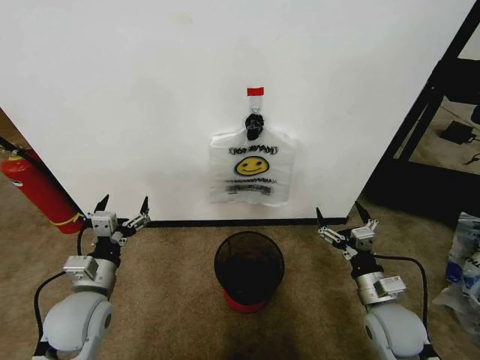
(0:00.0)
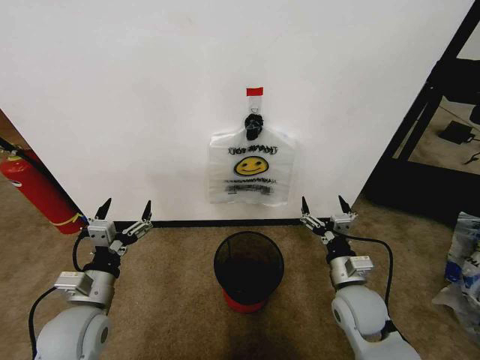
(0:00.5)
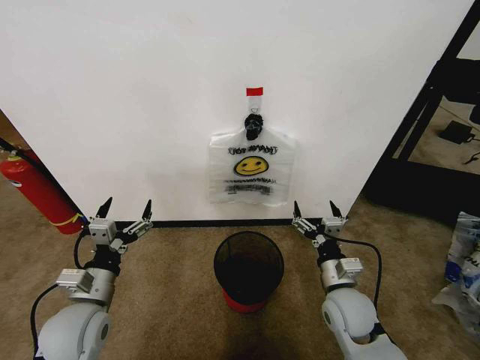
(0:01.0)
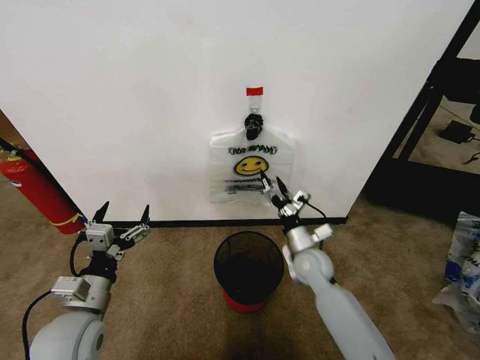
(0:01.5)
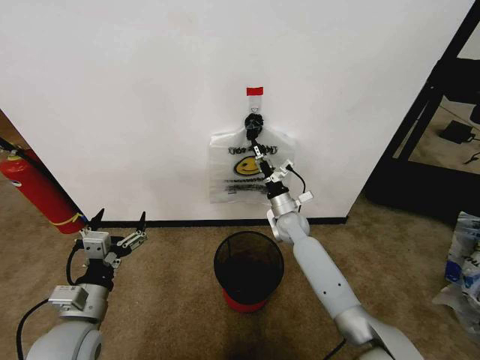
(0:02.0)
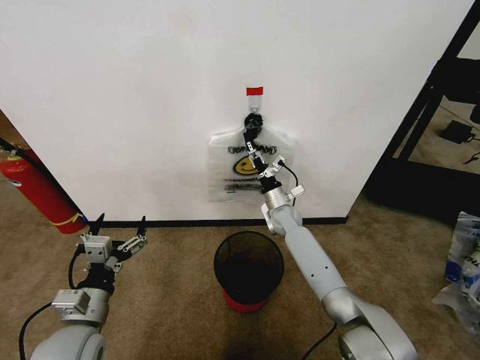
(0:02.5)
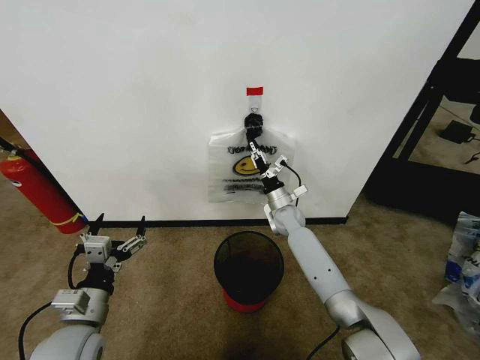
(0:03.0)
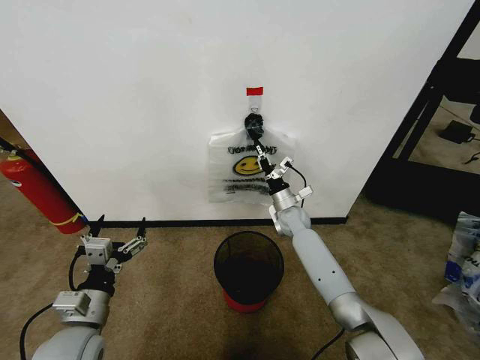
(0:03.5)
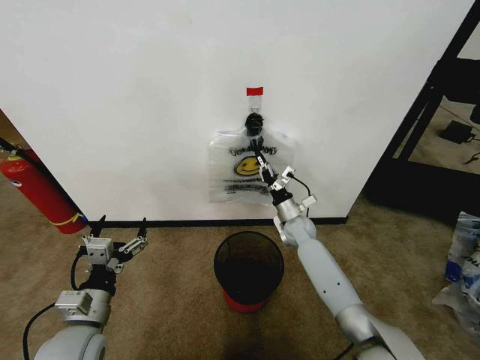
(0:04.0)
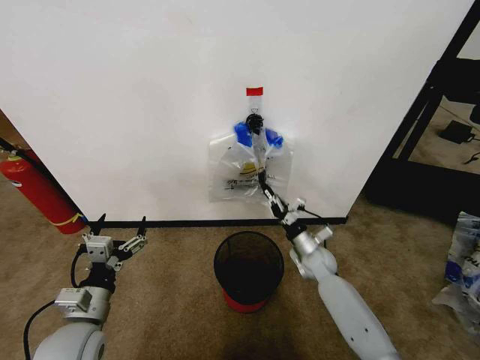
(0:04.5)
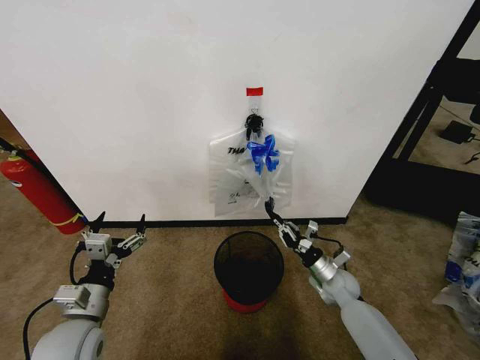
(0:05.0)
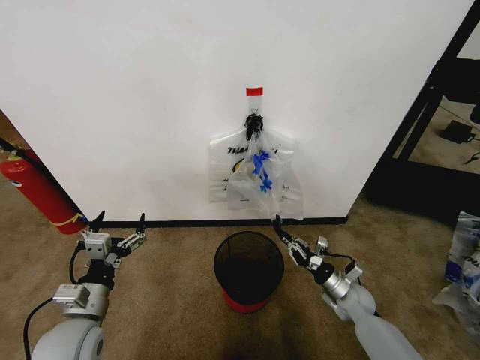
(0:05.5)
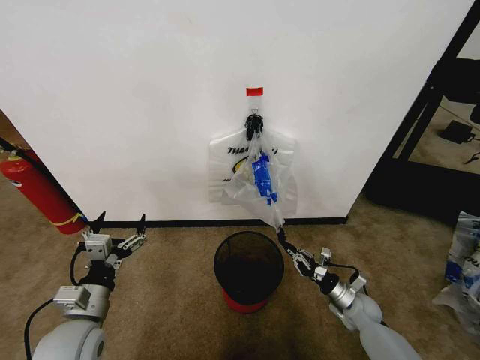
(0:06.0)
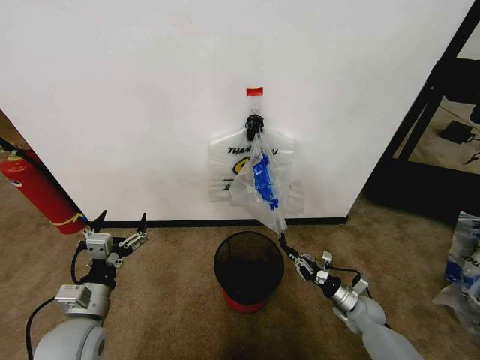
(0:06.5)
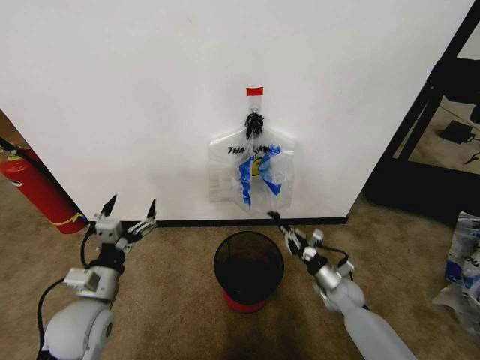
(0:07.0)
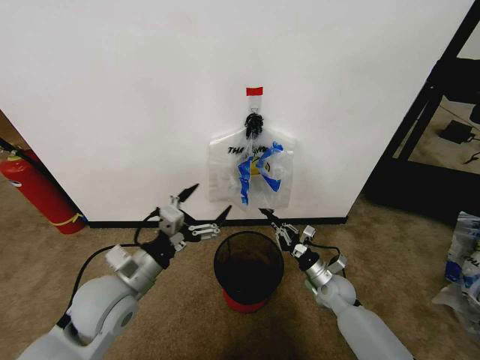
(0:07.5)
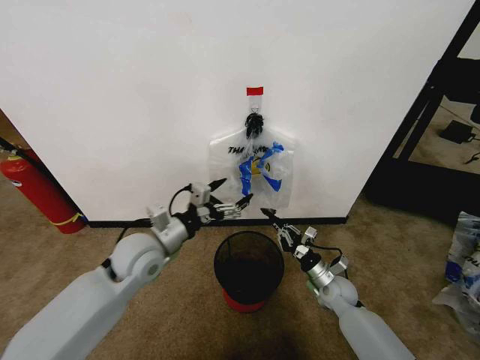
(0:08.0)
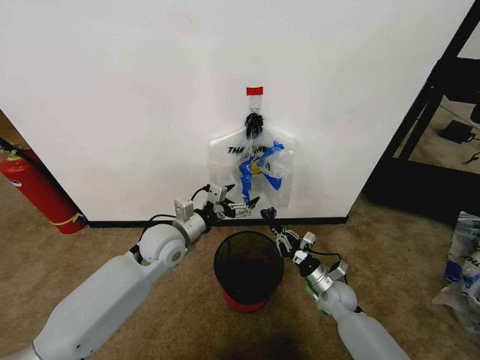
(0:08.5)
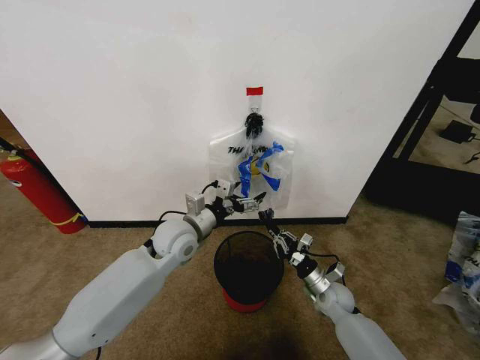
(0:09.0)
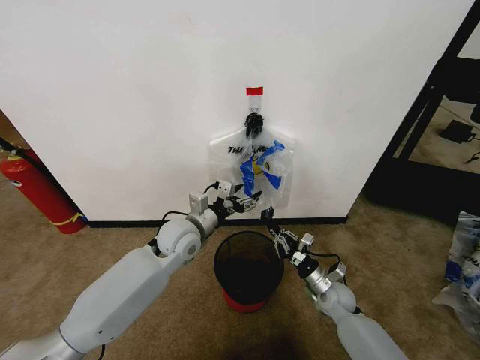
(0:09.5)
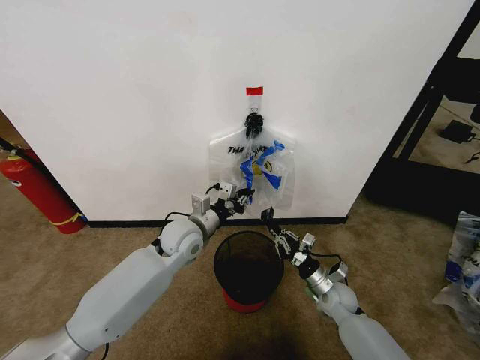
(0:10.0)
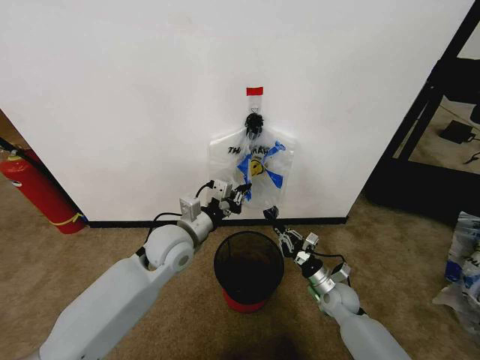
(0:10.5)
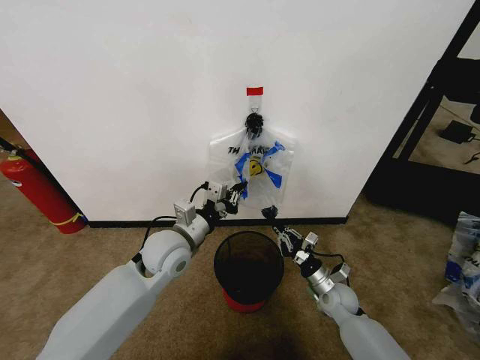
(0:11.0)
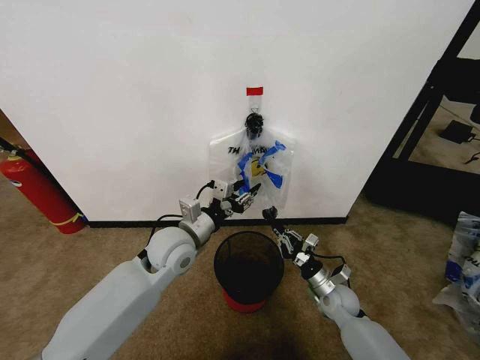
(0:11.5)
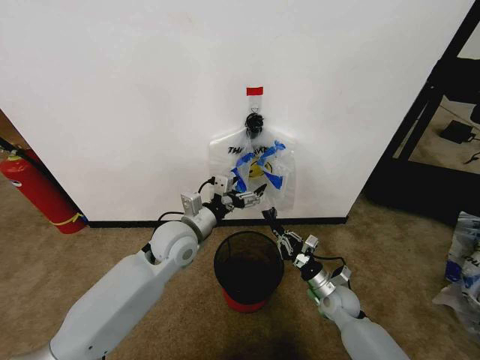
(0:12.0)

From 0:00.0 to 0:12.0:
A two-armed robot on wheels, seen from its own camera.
Task of the whole recording: Pick up the garbage bag from the wall and place it over the trash bin.
From 0:02.0 to 0:04.0: The right gripper closes up.
From 0:04.0 to 0:06.0: The right gripper goes roughly 30 cm backward, to the right and downward.
From 0:06.0 to 0:08.0: The left gripper moves forward, to the right and upward, about 20 cm. Meanwhile the right gripper moves to the left, some 5 cm.
From 0:08.0 to 0:10.0: The left gripper goes about 10 cm to the right and forward, and closes up.
From 0:10.0 to 0:12.0: The left gripper opens up.

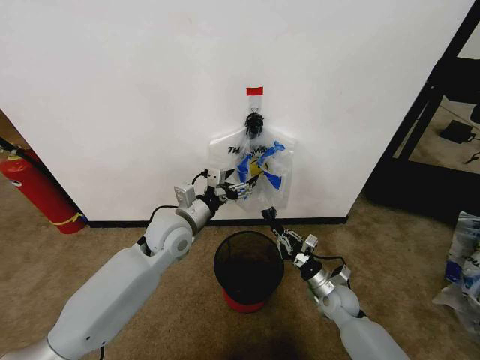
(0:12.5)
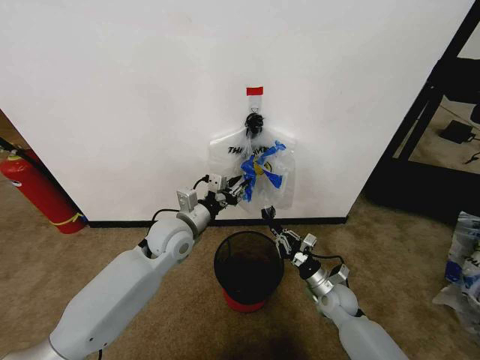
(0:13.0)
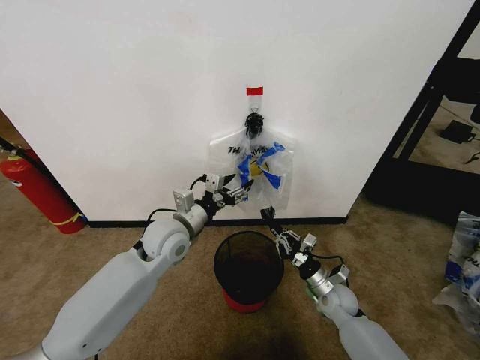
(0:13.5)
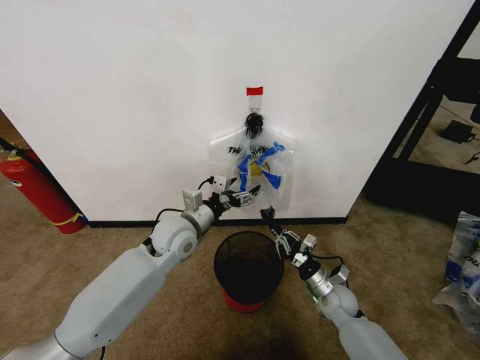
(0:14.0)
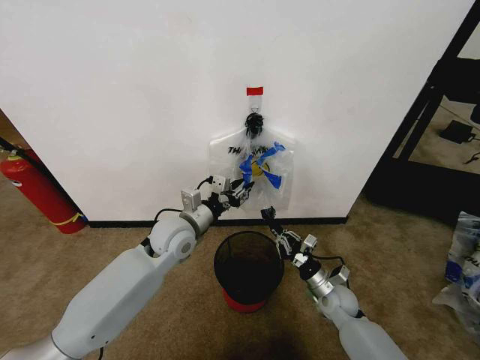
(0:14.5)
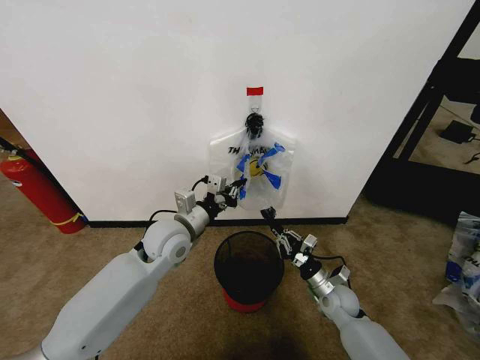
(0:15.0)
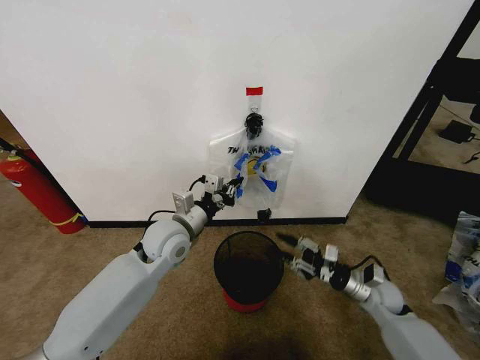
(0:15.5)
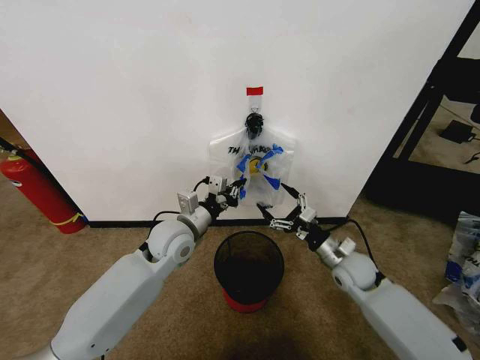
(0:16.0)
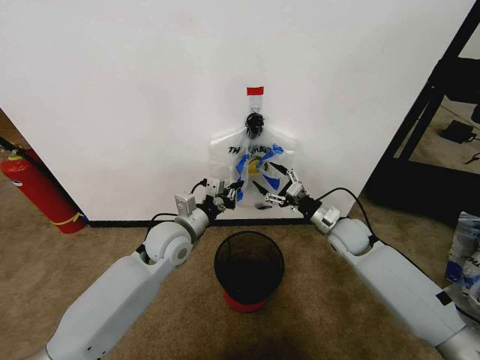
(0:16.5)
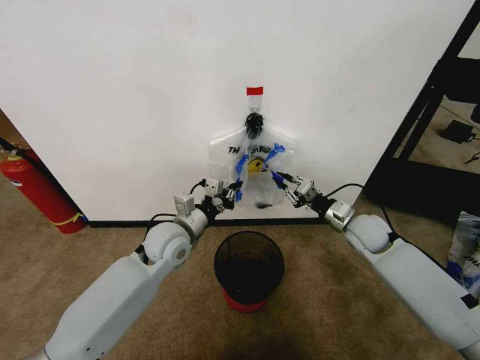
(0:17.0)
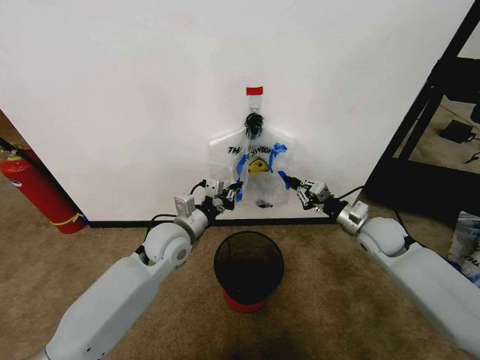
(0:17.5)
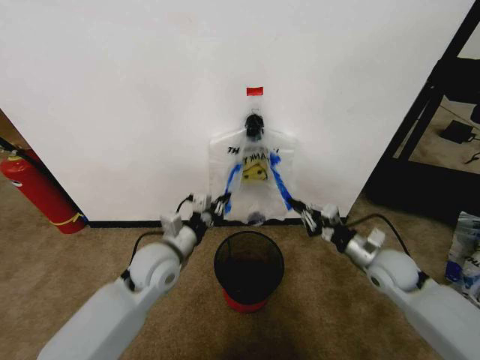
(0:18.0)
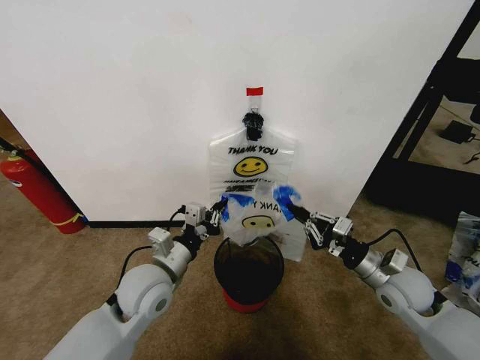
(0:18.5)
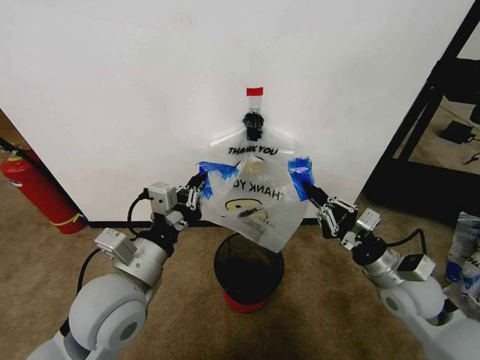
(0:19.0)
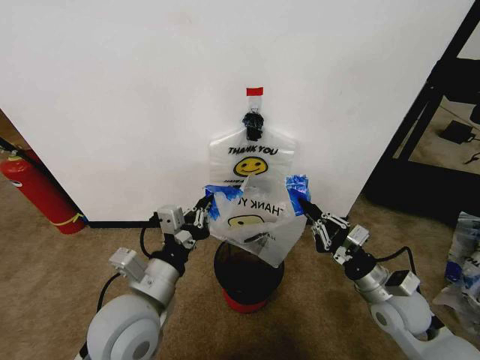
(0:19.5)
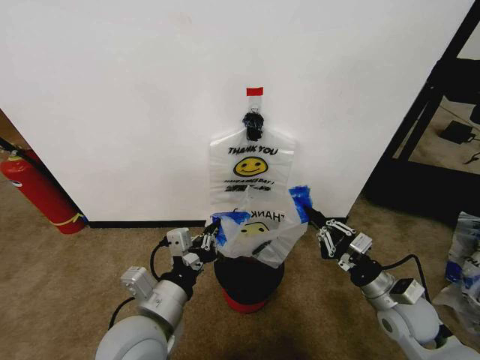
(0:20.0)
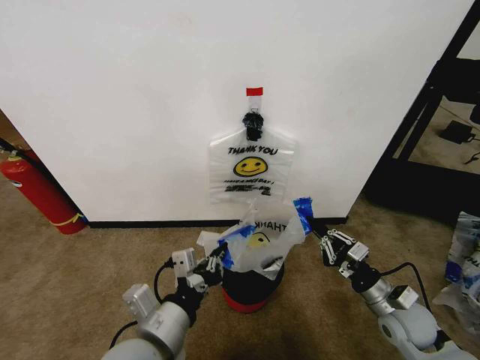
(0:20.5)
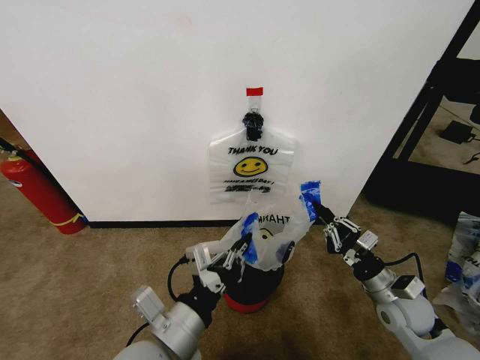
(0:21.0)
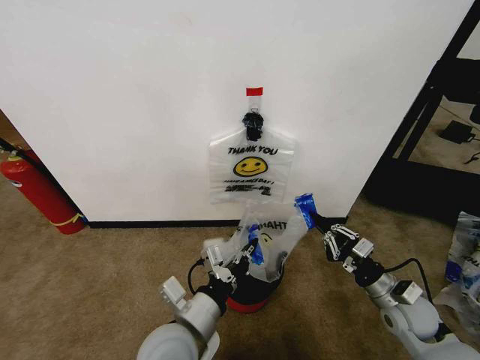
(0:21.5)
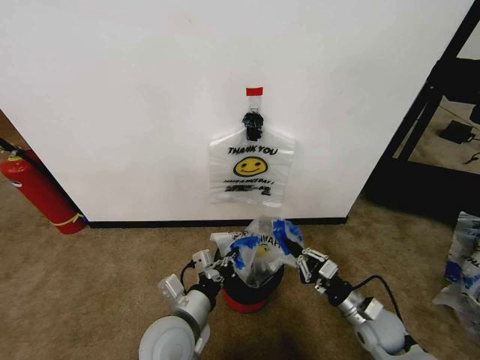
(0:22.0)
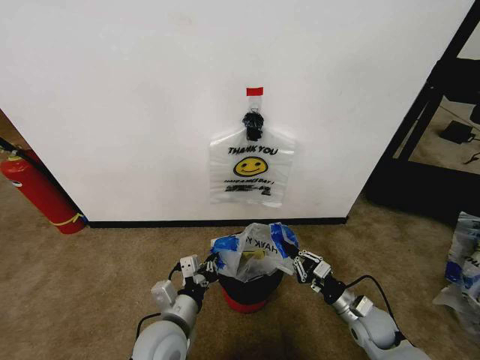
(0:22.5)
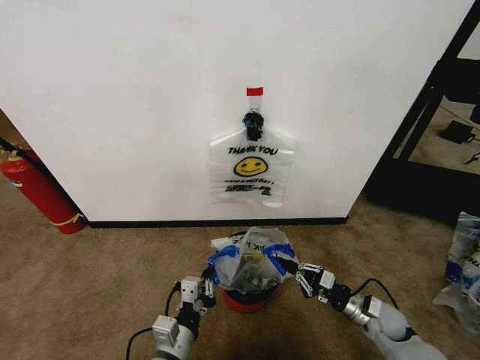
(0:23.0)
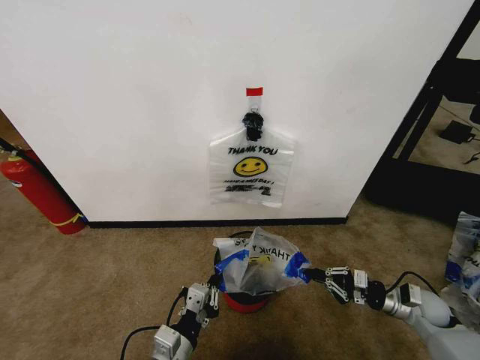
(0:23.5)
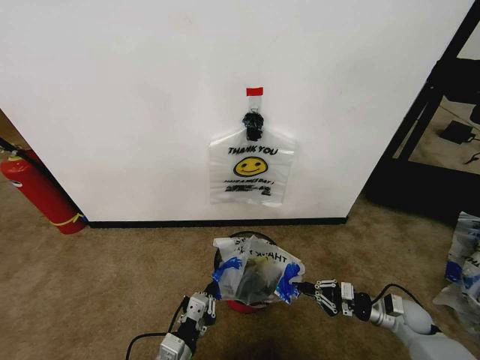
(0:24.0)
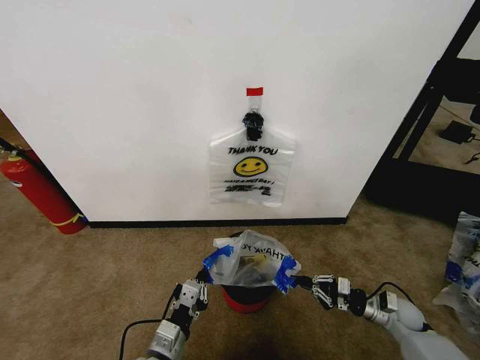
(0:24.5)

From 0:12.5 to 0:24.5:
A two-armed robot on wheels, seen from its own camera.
Task of the whole recording: Pick up the garbage bag from the wall and place it over the trash bin.
From 0:12.5 to 0:14.5: The left gripper closes up.
From 0:14.5 to 0:16.5: The right gripper goes about 20 cm upward and forward, and opens.
From 0:16.5 to 0:18.5: The right gripper travels backward and to the right by some 15 cm, and closes up; the left gripper goes approximately 10 cm backward.
From 0:18.5 to 0:20.5: The right gripper travels downward by roughly 5 cm. Meanwhile the left gripper is displaced backward by some 15 cm.
From 0:20.5 to 0:22.5: The right gripper is displaced downward by approximately 10 cm, while the left gripper travels downward and forward by roughly 15 cm.
From 0:22.5 to 0:24.5: The left gripper shifts some 5 cm backward. Meanwhile the right gripper heads to the right, covering approximately 10 cm.

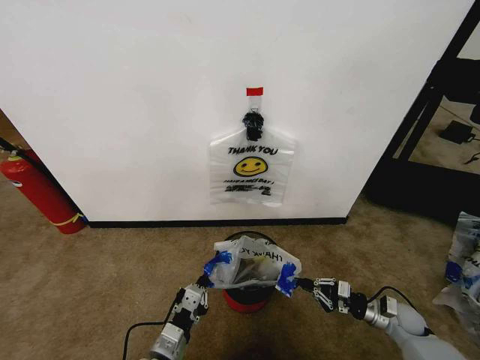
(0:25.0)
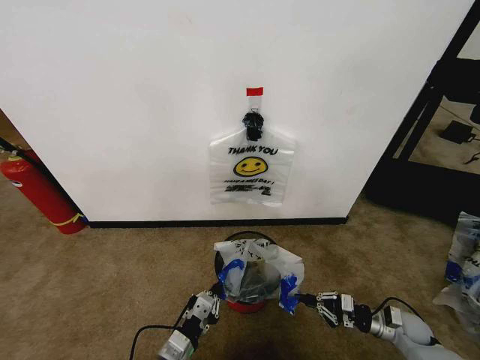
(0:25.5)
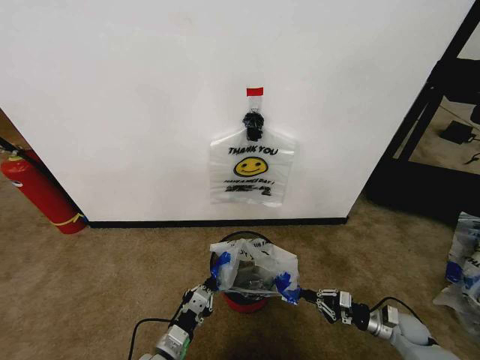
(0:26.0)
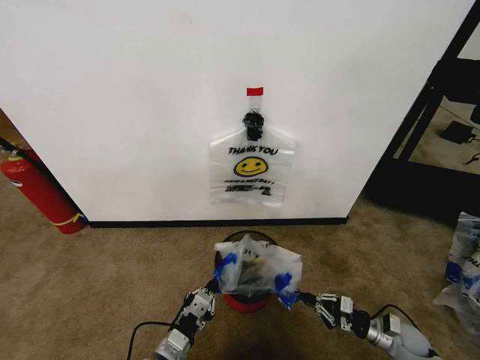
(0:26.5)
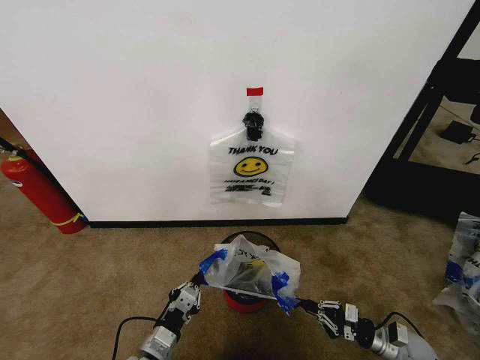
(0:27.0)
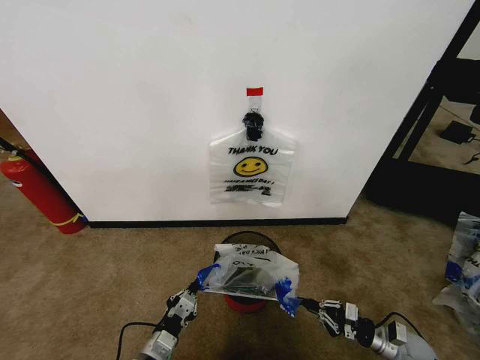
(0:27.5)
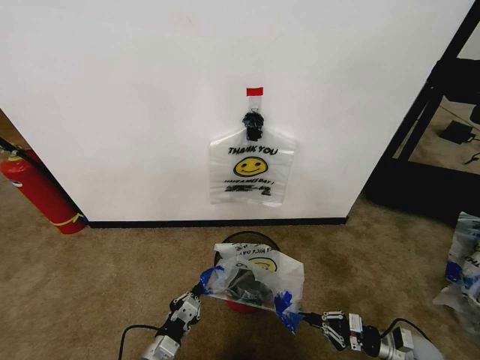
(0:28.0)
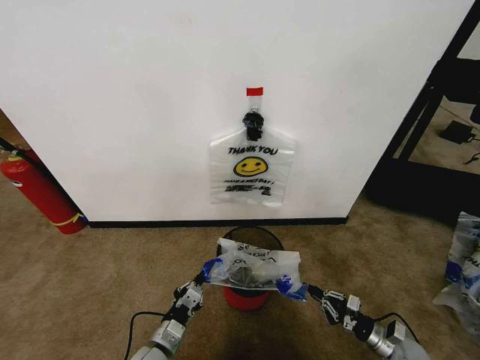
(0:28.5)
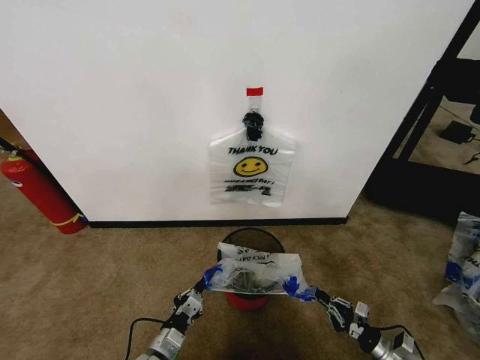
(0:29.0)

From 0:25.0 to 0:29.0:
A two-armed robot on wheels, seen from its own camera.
Task of the whole recording: Pick up the garbage bag from the wall and place it over the trash bin.
From 0:25.0 to 0:27.0: The right gripper heads backward, covering roughly 5 cm.
From 0:27.0 to 0:29.0: The right gripper moves roughly 5 cm. The left gripper is displaced downward by some 5 cm.
